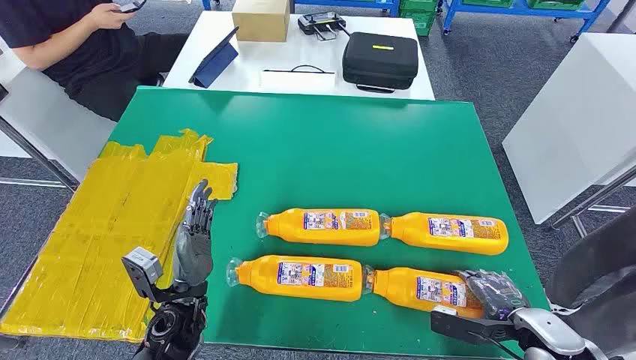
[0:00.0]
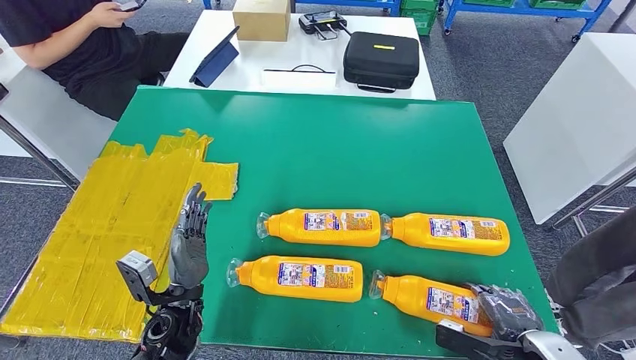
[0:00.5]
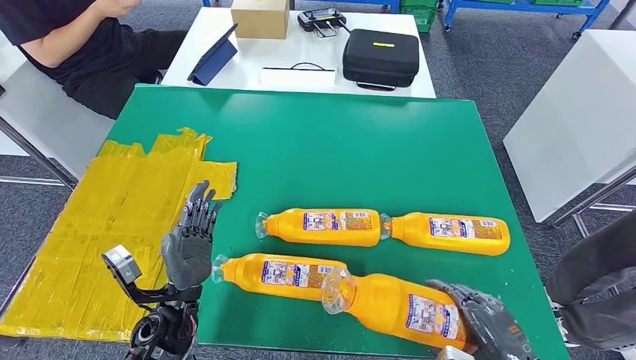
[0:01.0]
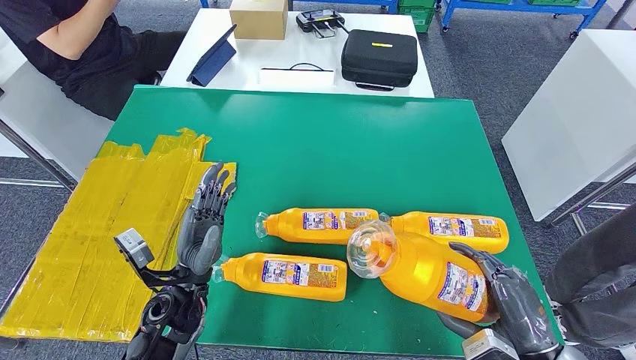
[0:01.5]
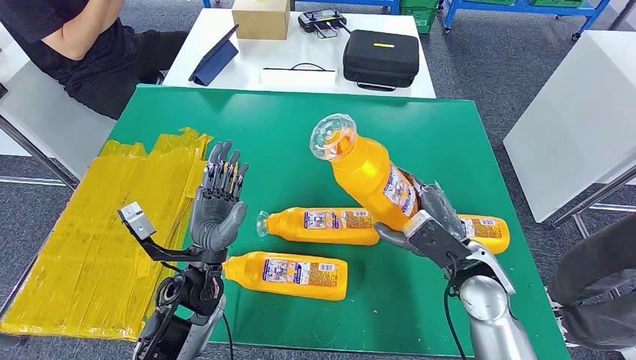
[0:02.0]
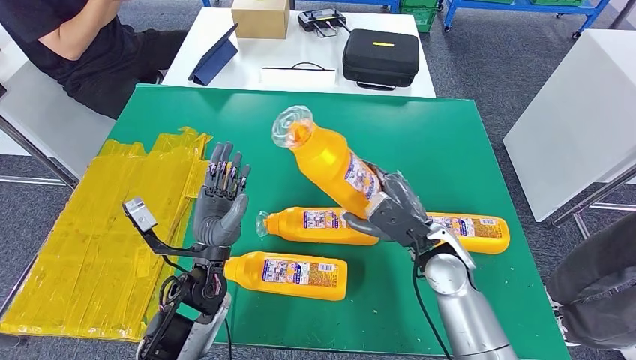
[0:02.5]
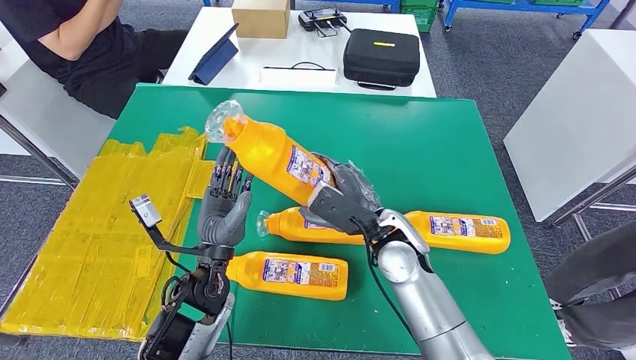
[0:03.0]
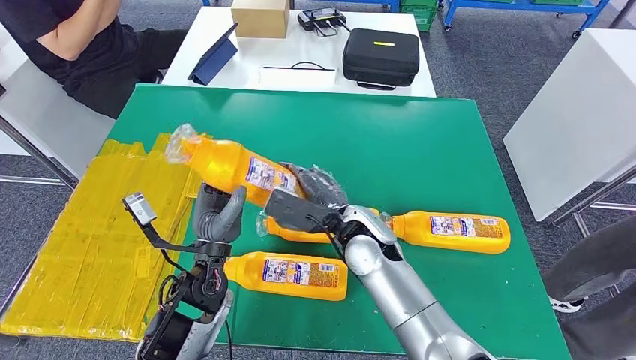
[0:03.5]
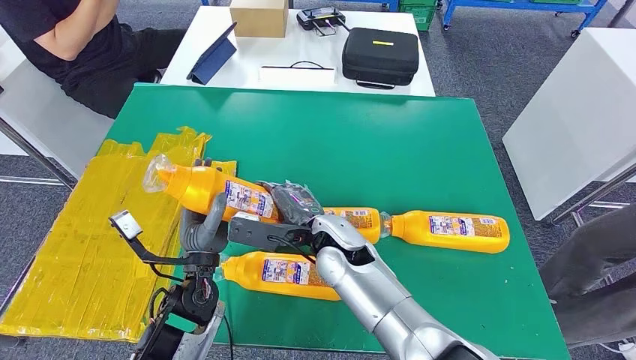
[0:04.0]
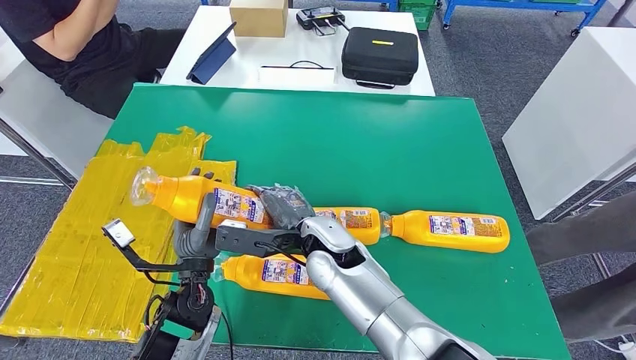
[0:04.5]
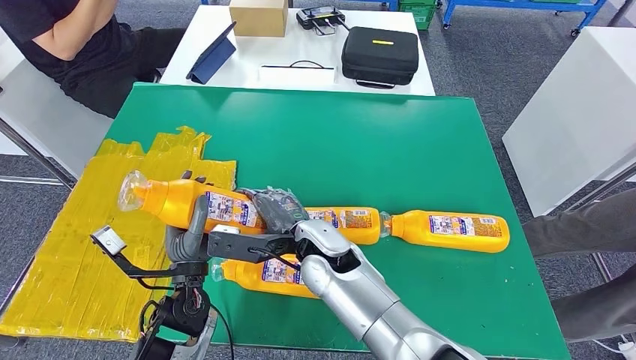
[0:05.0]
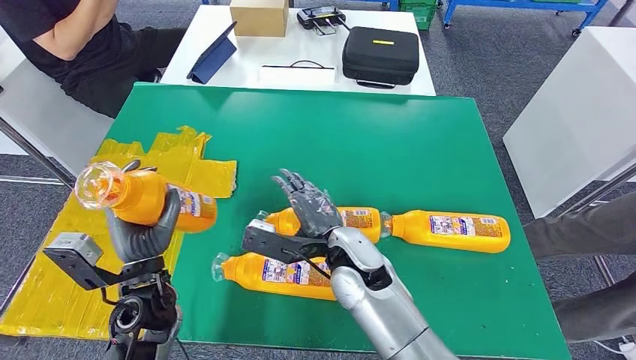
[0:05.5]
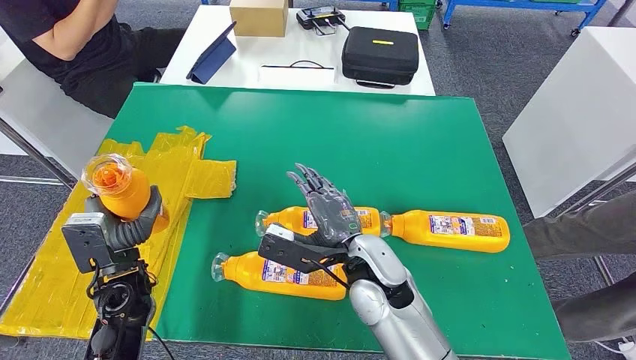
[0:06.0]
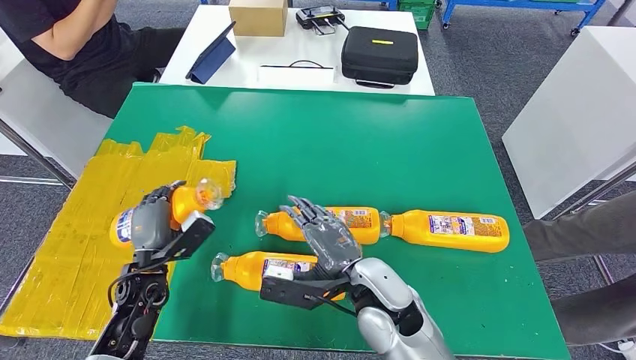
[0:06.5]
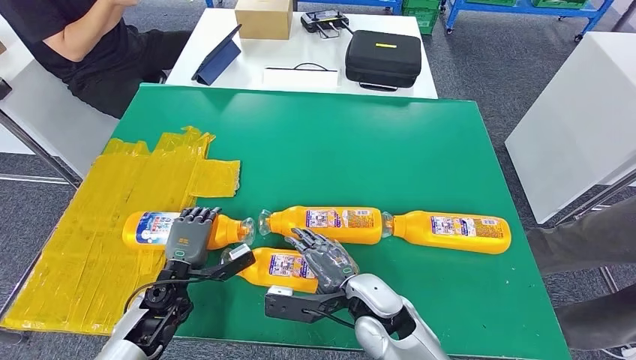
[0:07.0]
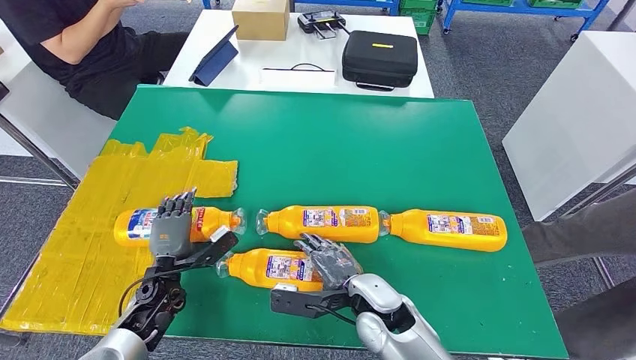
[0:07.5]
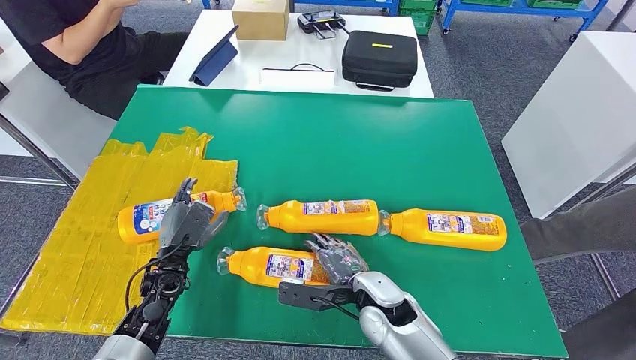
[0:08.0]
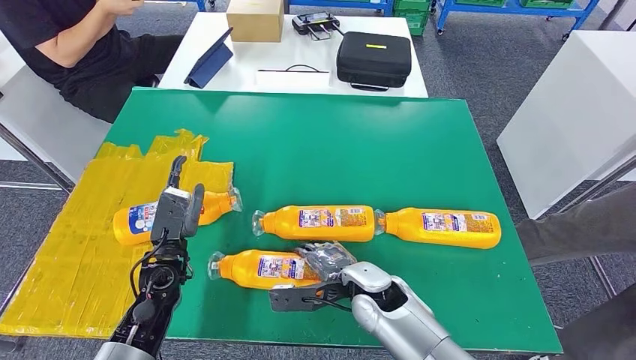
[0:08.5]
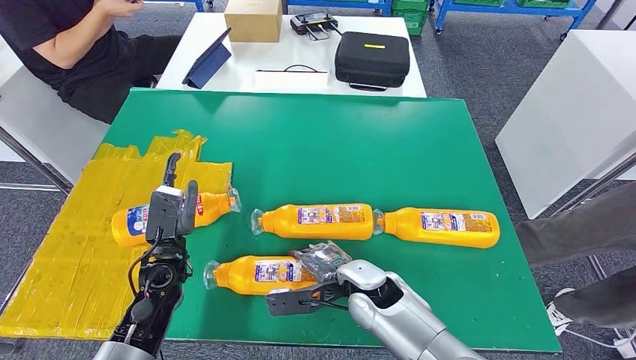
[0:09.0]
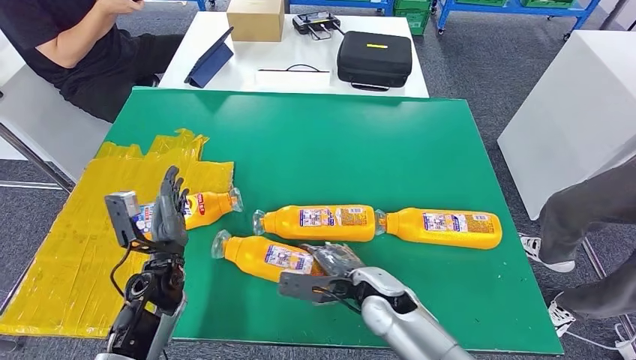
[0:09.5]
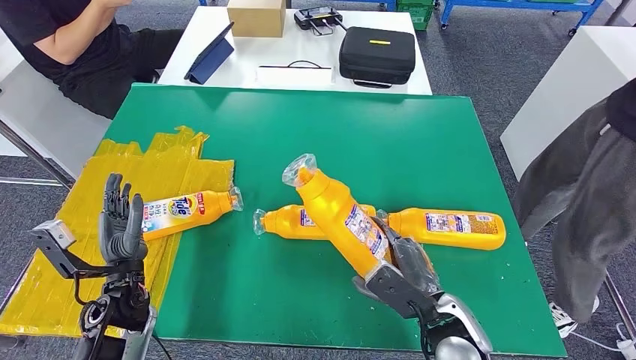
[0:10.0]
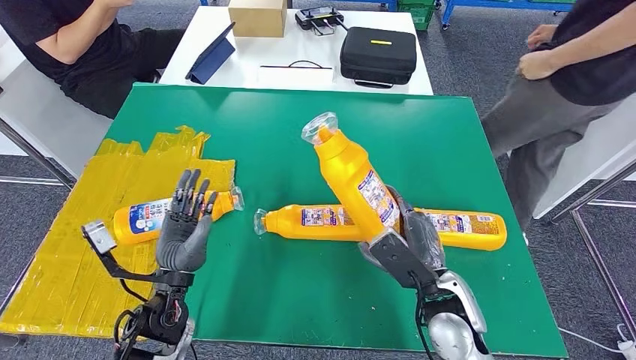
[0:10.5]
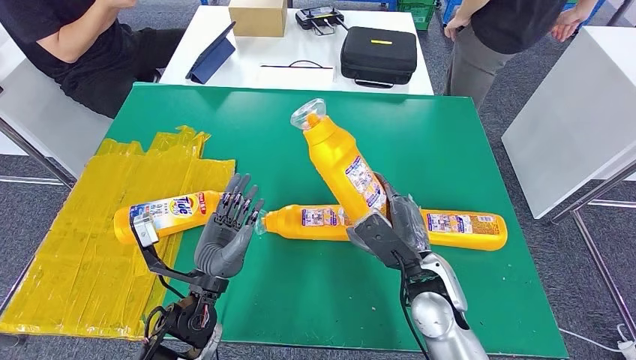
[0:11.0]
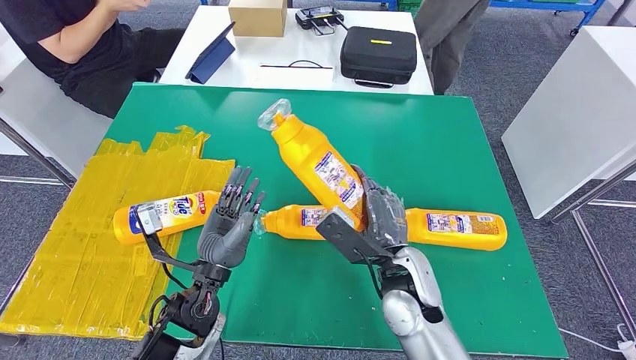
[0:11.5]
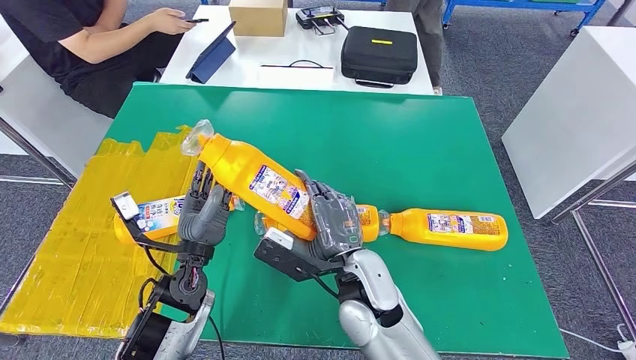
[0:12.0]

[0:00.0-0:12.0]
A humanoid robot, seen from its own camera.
Step, 0:00.0 to 0:03.5: Take the bottle from the table.
Step, 0:04.0 to 0:07.5: Flip the bottle to face forward.
0:04.0 to 0:06.0: The right hand shifts about 5 cm to the right; the left hand heads to the left, covering roughly 15 cm.

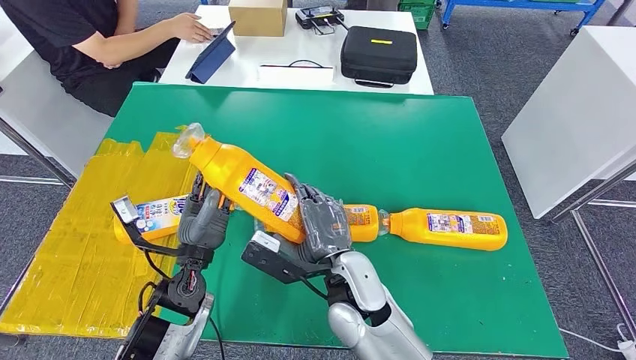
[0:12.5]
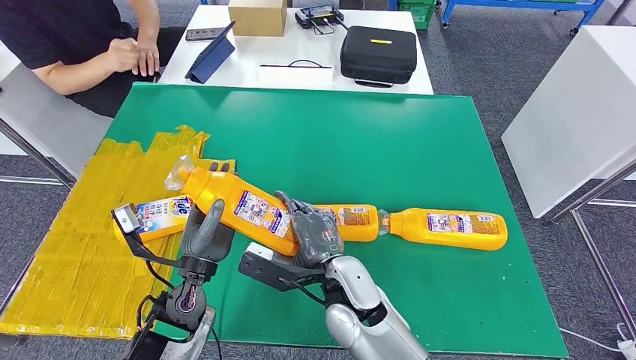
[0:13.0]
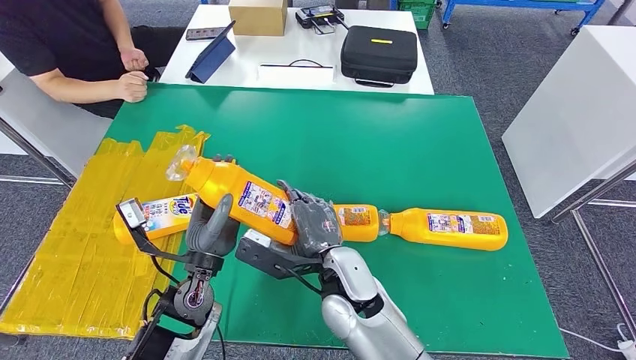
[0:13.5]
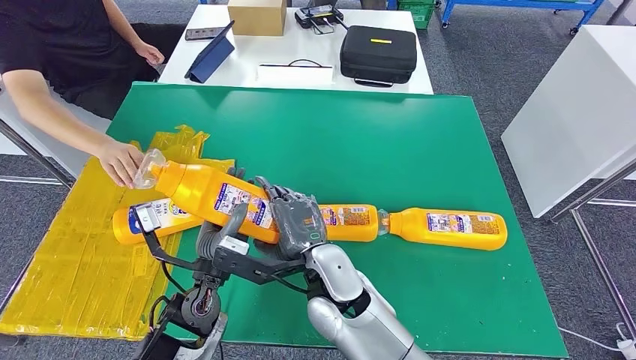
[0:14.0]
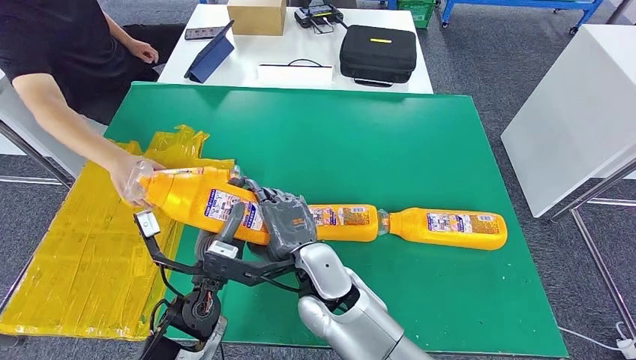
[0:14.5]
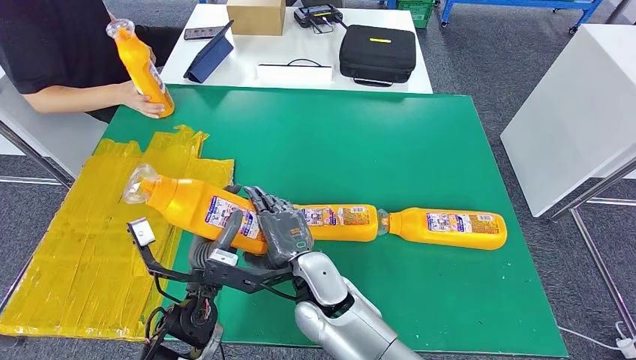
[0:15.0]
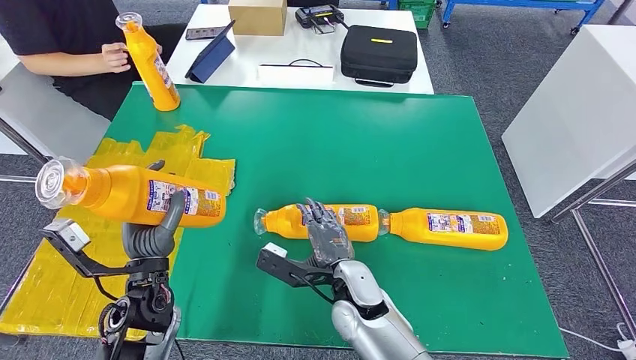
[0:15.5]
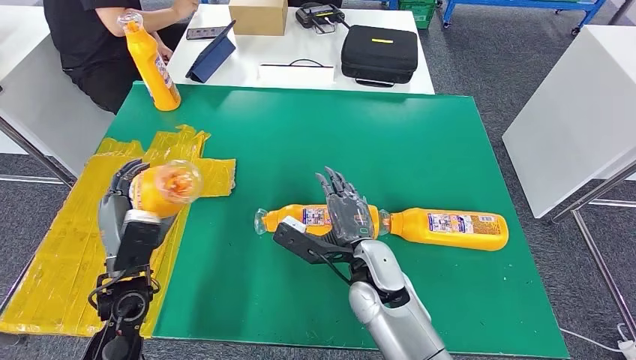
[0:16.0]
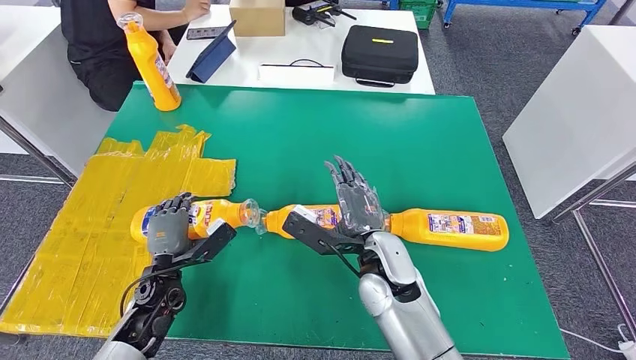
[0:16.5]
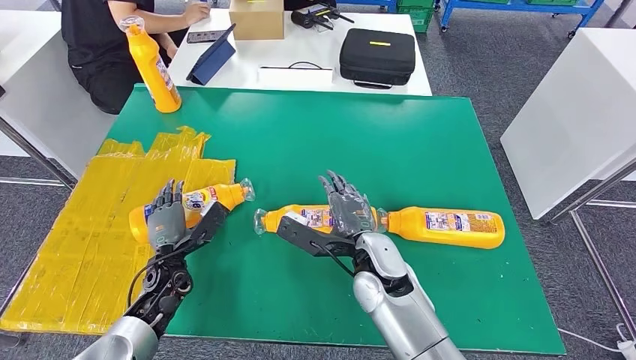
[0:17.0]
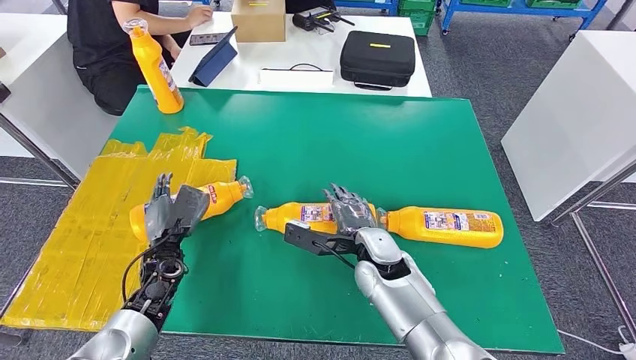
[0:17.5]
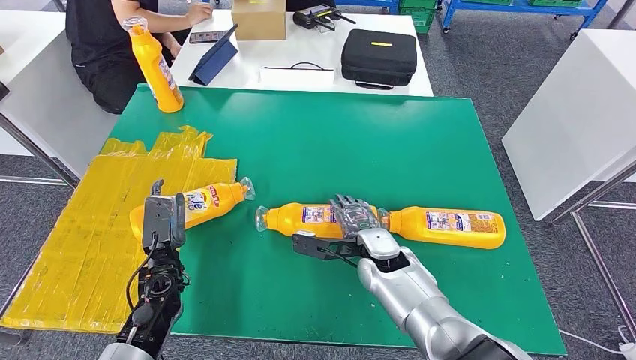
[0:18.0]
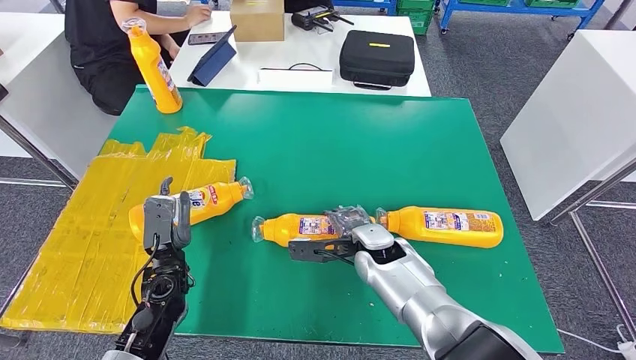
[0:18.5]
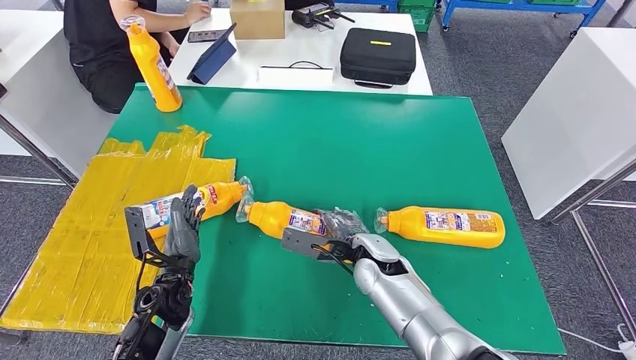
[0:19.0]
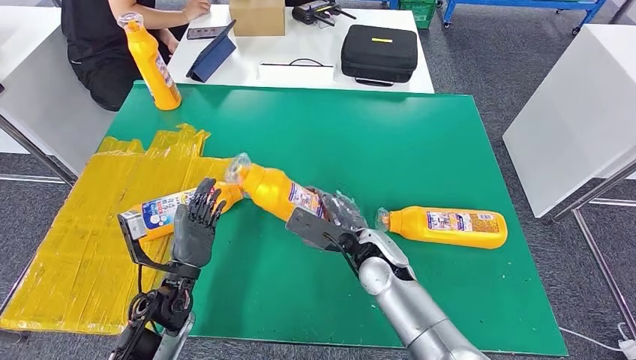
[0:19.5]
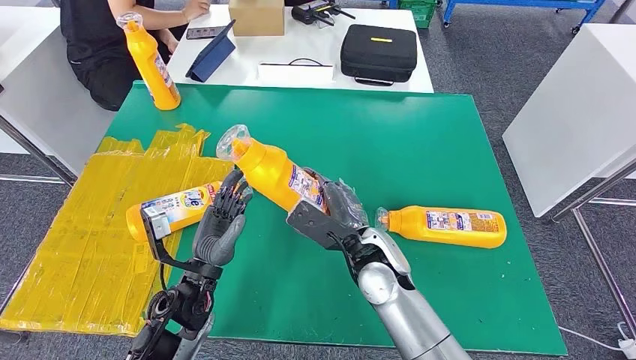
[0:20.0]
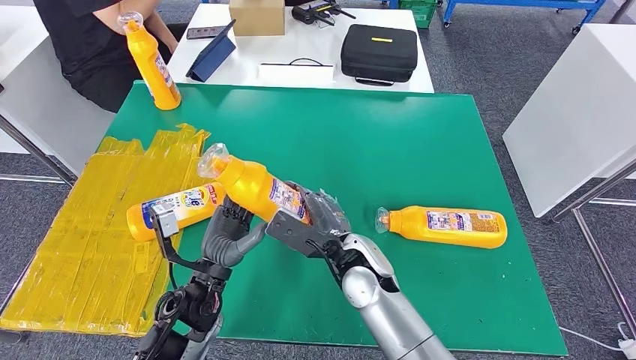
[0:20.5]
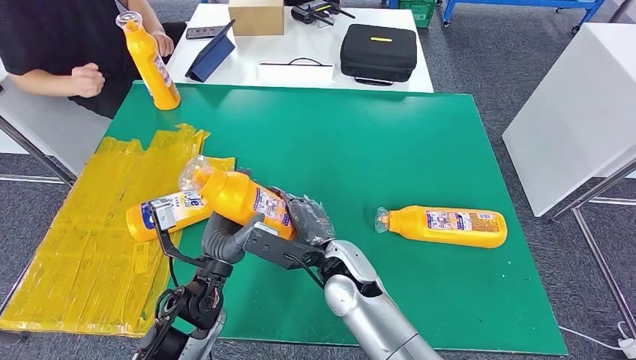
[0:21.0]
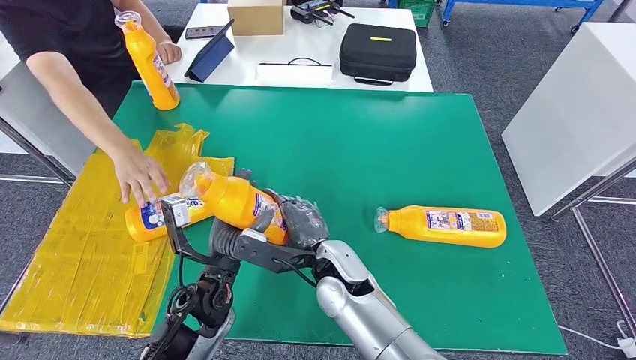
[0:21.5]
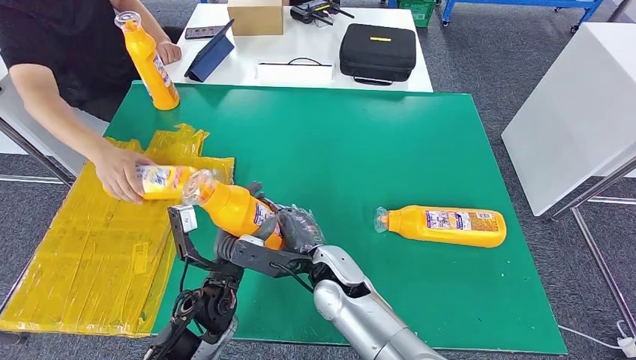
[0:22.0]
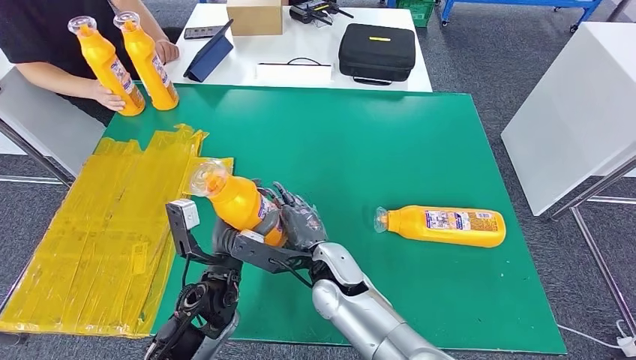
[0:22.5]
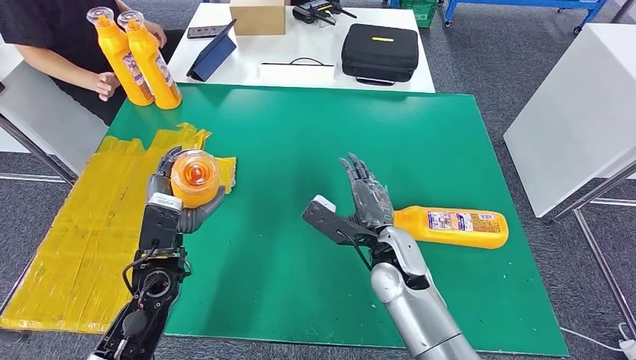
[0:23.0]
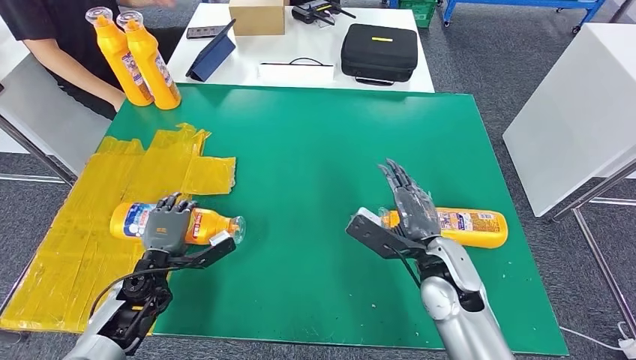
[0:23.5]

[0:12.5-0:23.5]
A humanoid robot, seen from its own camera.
Step, 0:13.0 to 0:16.5: Flip the bottle to face forward.
Step, 0:18.0 to 0:21.5: Pick up the bottle from the table.
